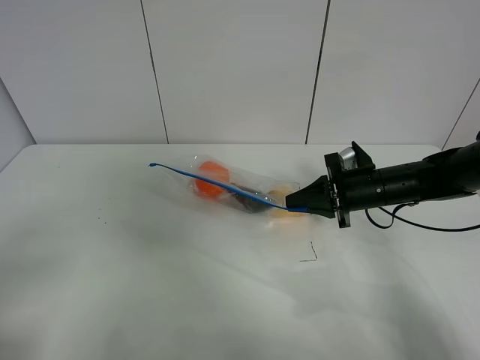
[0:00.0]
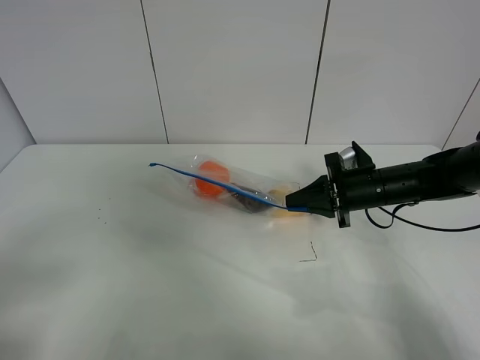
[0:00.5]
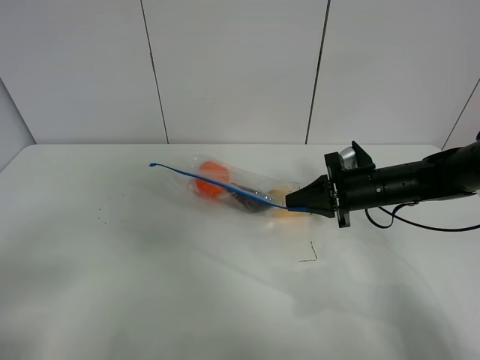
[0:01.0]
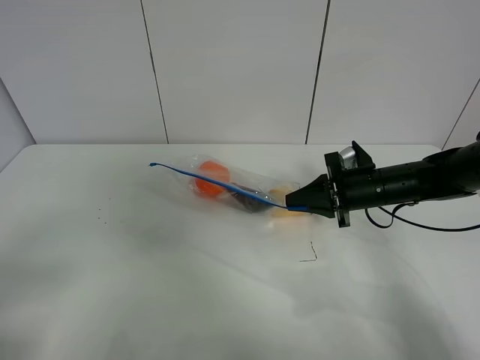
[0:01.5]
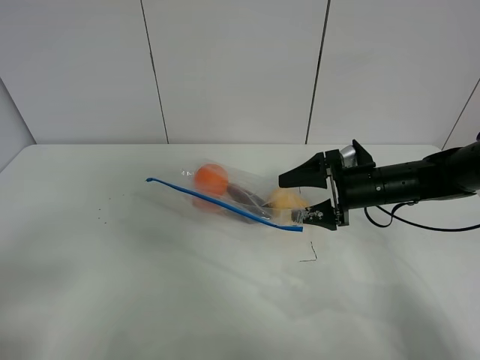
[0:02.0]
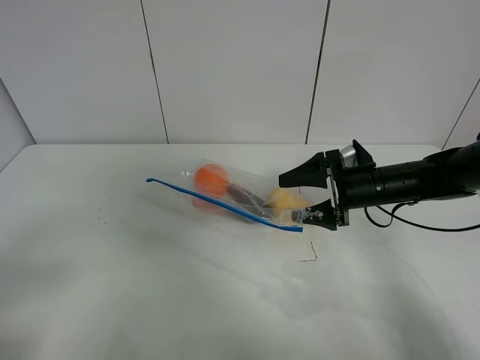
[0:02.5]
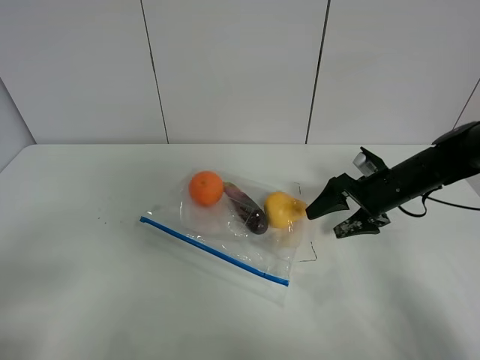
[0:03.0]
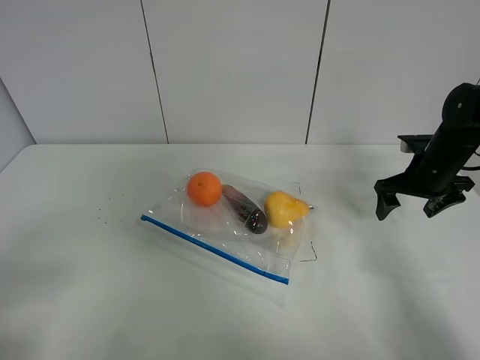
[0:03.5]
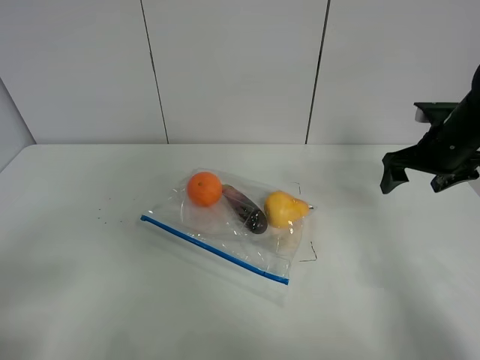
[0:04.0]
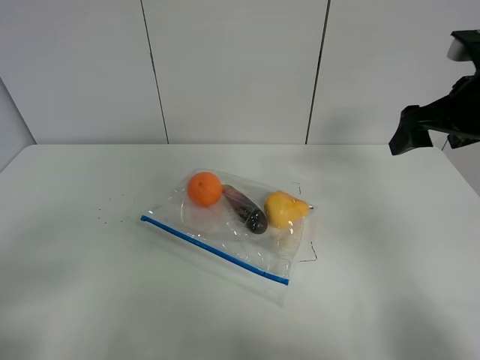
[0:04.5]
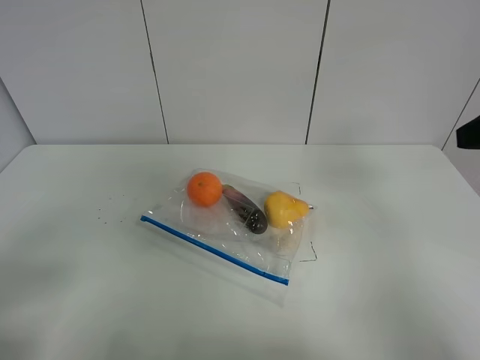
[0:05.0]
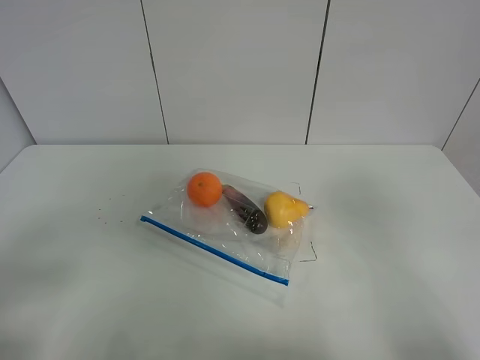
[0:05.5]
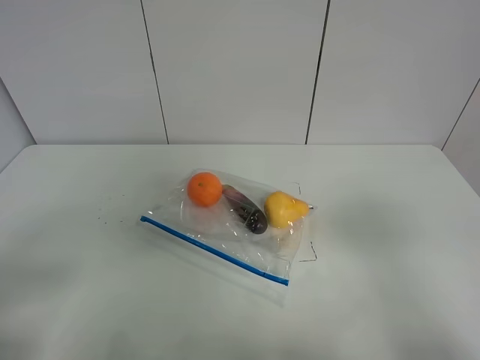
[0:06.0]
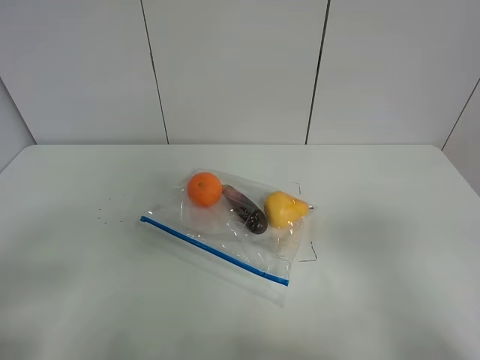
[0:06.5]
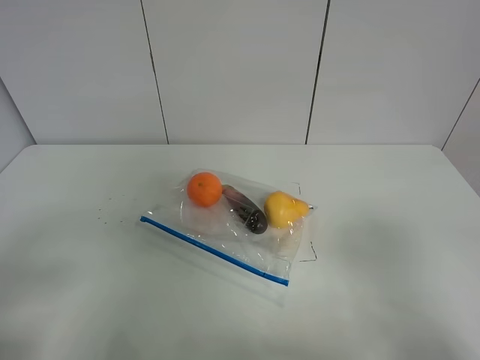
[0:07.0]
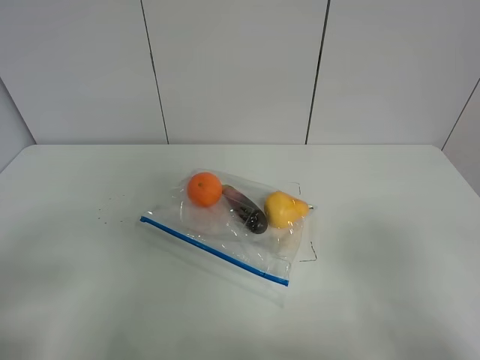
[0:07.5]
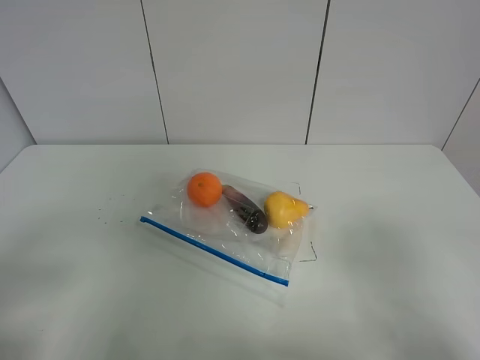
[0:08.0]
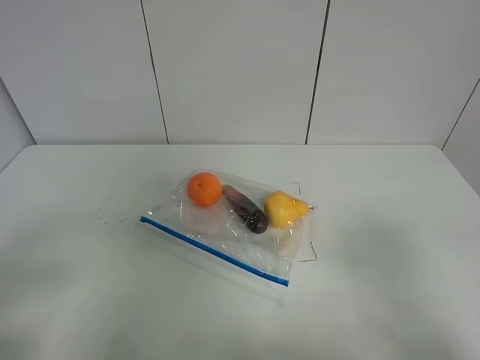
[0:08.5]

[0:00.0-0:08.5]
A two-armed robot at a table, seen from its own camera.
Step, 0:00.0 to 0:03.0: Place the fruit bag with right gripper.
0:00.0 to 0:02.0: The right gripper opens up.
0:02.0 to 0:04.0: The right gripper heads to the right and upward, covering roughly 10 cm.
0:04.0 to 0:06.5: The right gripper heads backward, covering approximately 40 cm.

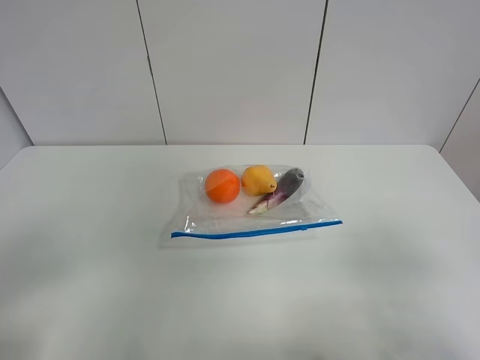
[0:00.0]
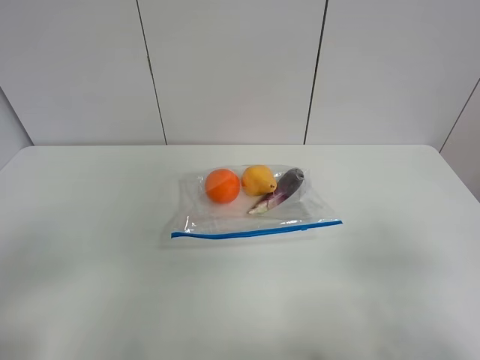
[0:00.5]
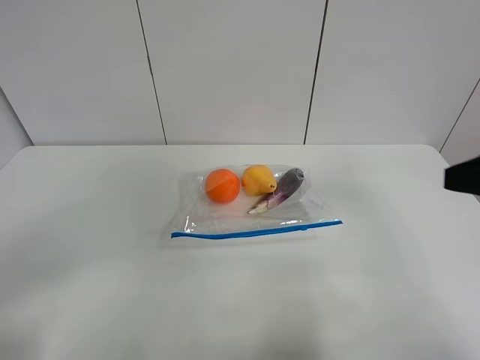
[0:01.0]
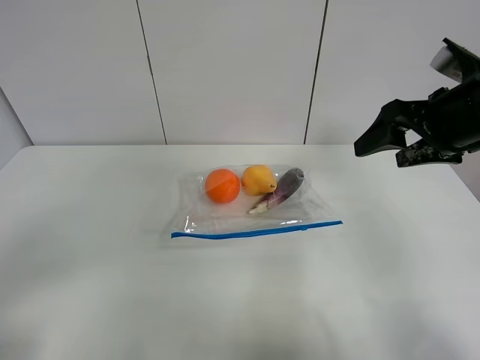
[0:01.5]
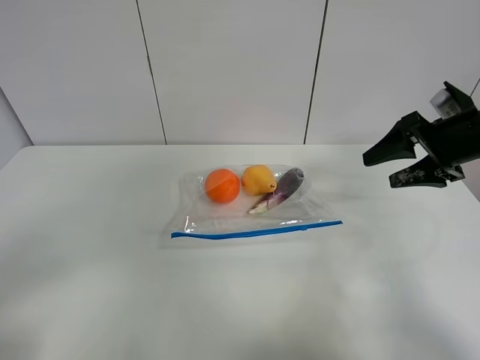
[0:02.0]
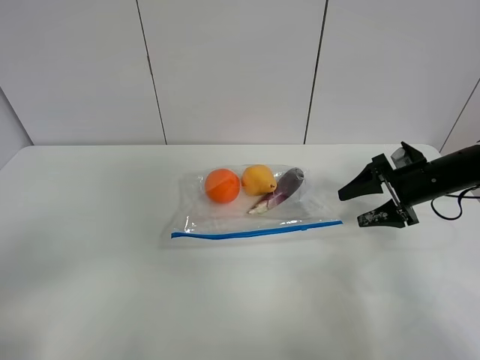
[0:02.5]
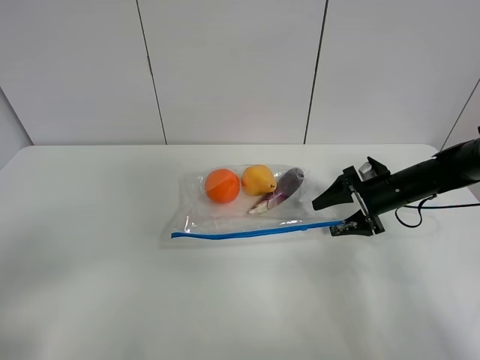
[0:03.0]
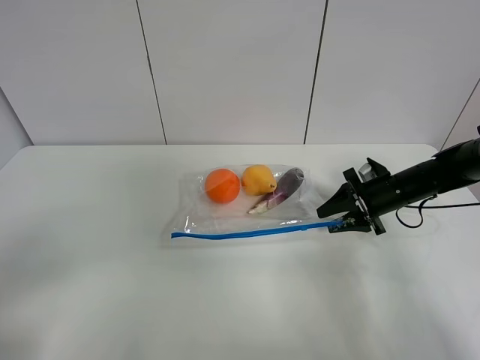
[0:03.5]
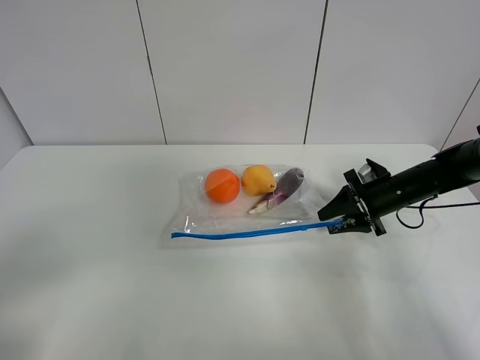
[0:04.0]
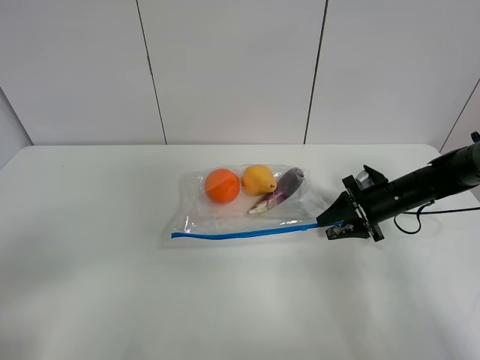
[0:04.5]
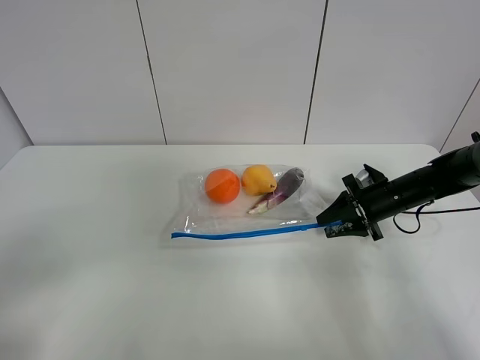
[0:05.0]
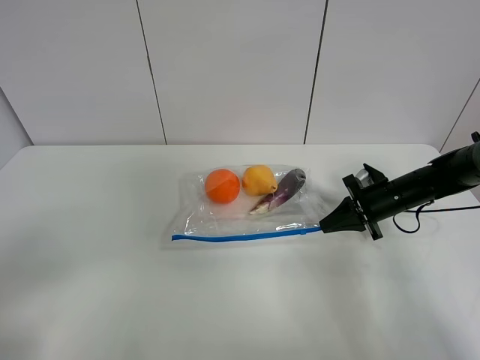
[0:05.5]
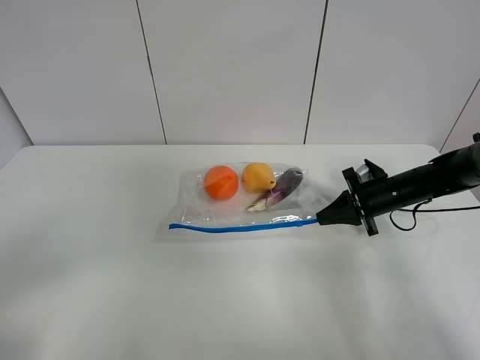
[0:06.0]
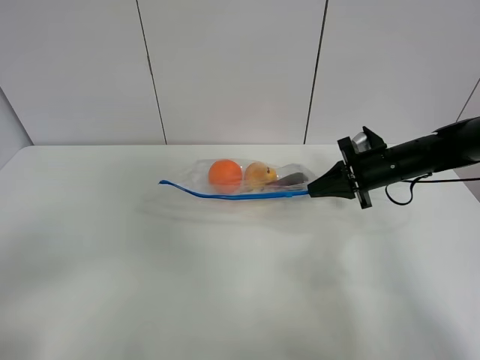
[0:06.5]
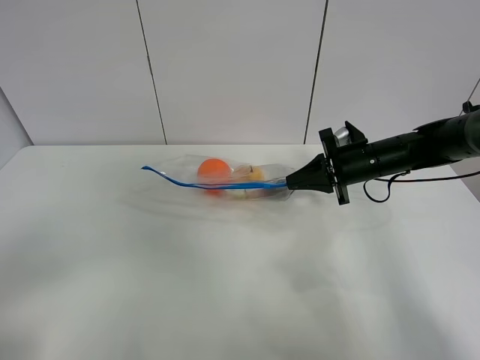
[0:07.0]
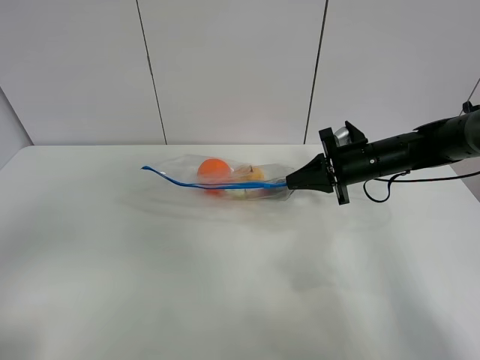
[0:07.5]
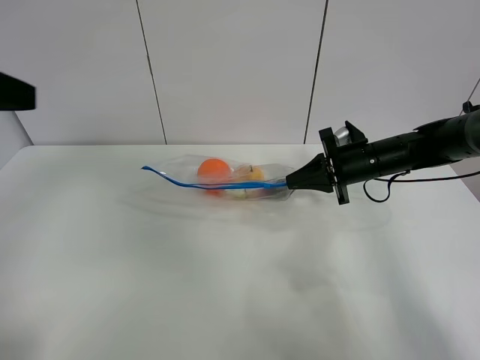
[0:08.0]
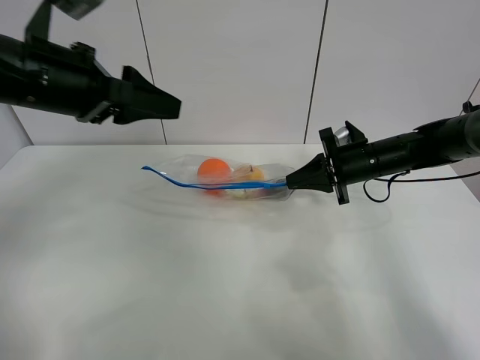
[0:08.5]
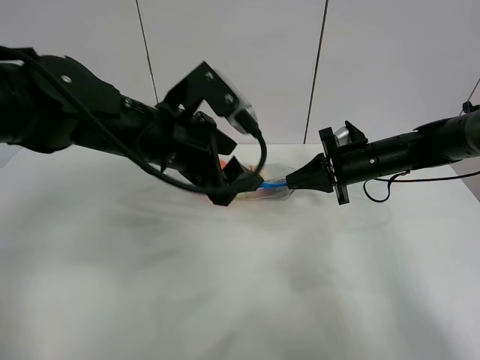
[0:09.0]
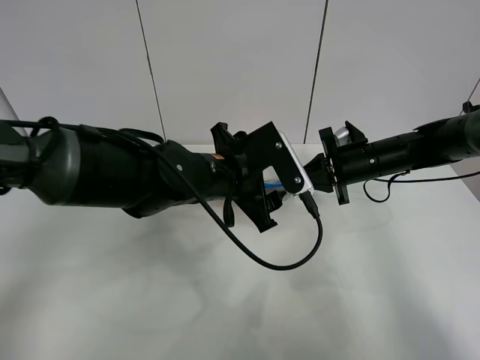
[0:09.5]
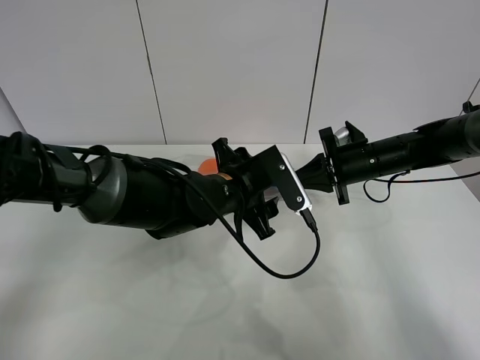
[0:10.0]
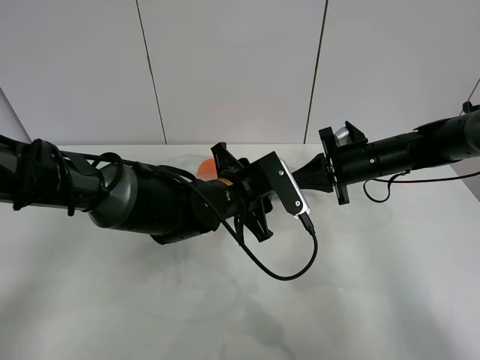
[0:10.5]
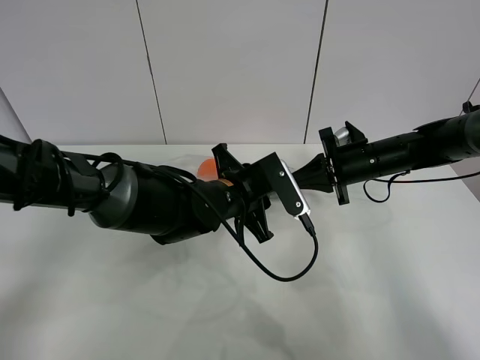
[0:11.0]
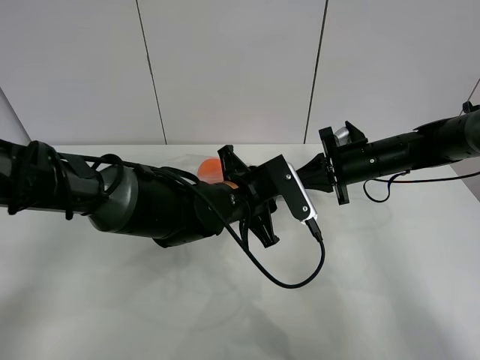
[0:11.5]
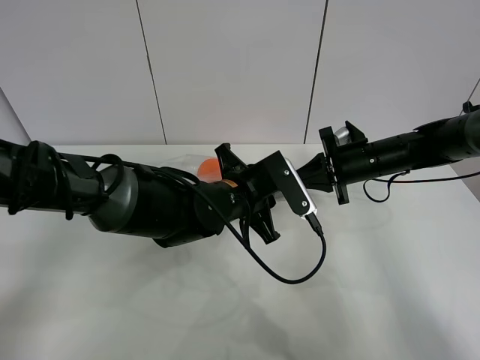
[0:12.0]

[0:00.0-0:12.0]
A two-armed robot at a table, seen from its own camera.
Step, 0:00.0 to 0:05.0: Grasp the fruit bag with right gripper.
Step, 0:05.5 to 0:07.0: Lift the fruit bag with your right gripper.
0:00.0 to 0:02.0: The right gripper heads forward, covering approximately 30 cm.
0:02.0 to 0:04.0: The right gripper moves downward, some 15 cm, and closes up.
0:04.0 to 0:06.0: The right gripper closes up.
0:06.0 to 0:08.0: The right gripper heads upward and to the left, covering approximately 10 cm. Meanwhile the left gripper heads forward and upward, covering approximately 25 cm.
0:08.0 to 0:10.0: The left gripper shifts about 35 cm to the right, downward and forward.
0:10.0 to 0:12.0: The left gripper closes up.

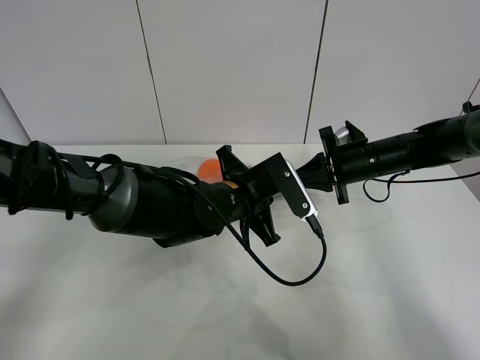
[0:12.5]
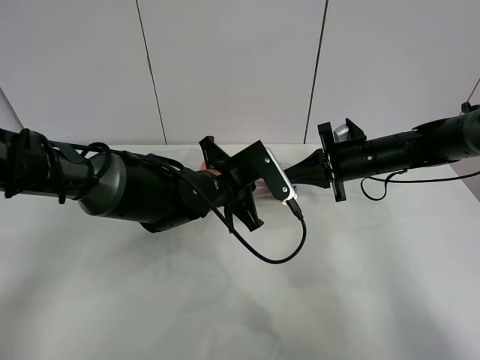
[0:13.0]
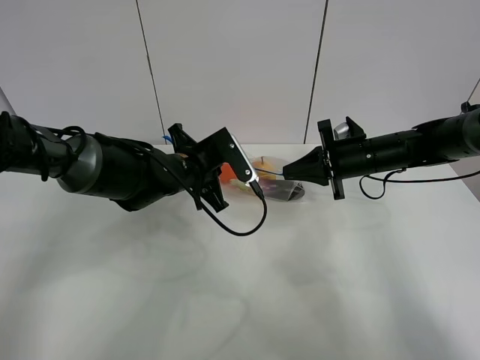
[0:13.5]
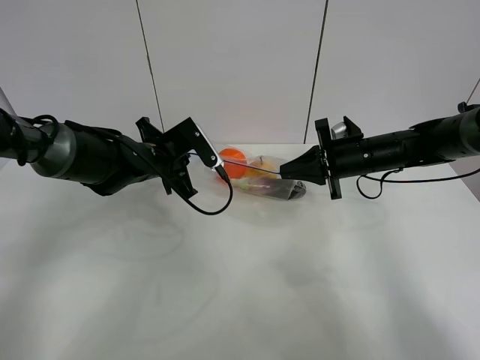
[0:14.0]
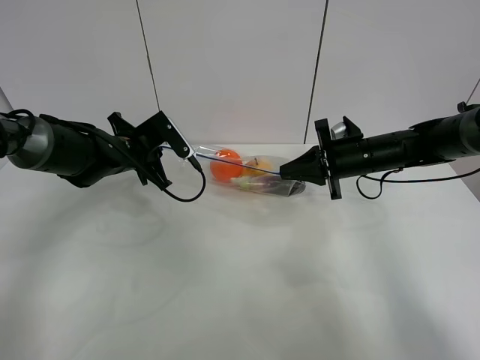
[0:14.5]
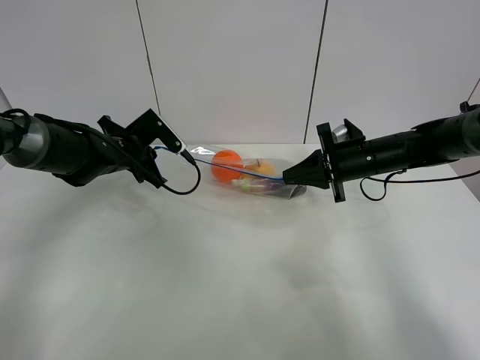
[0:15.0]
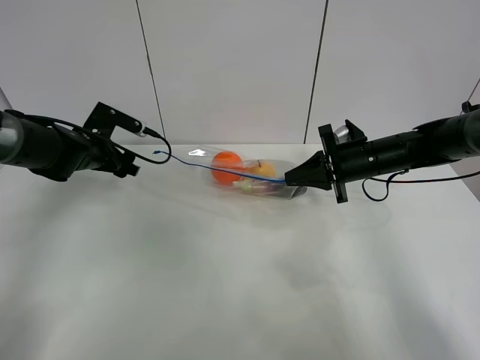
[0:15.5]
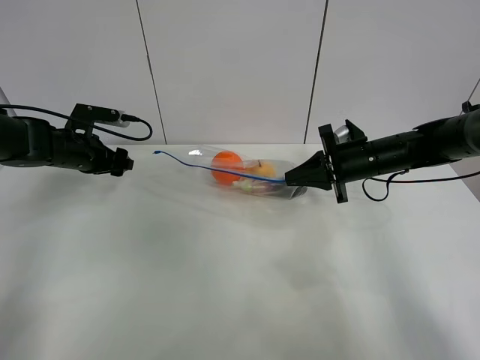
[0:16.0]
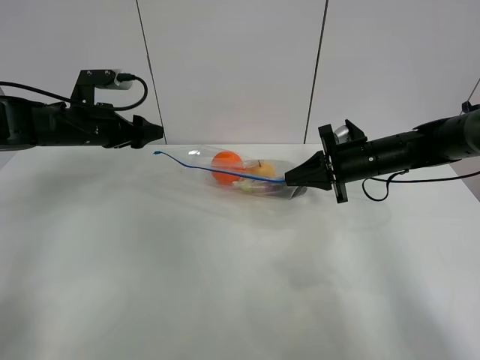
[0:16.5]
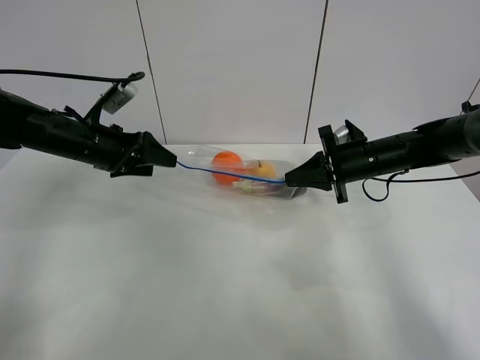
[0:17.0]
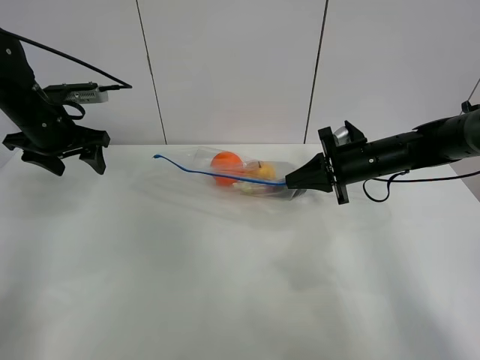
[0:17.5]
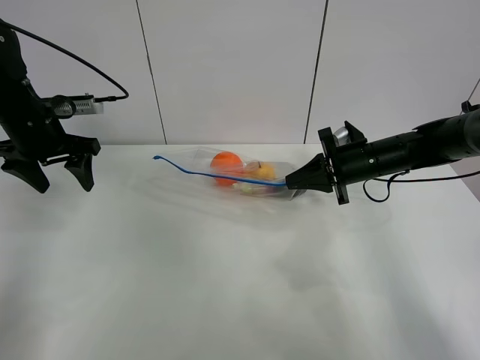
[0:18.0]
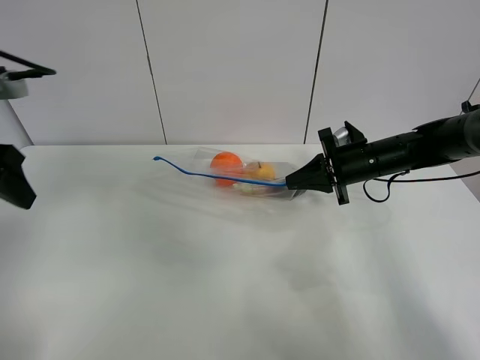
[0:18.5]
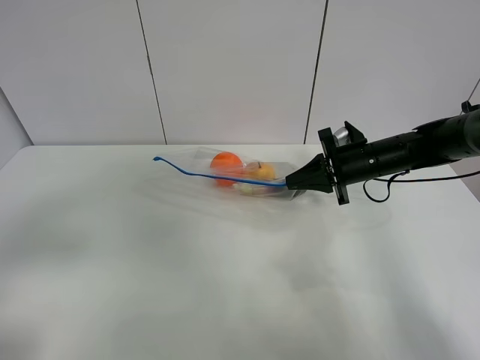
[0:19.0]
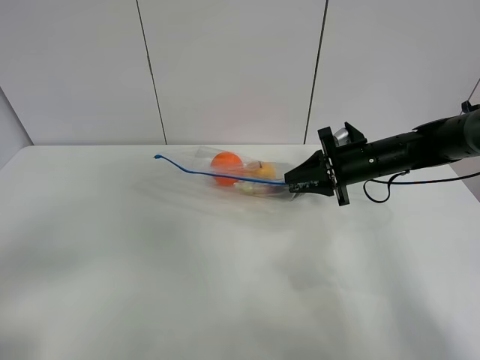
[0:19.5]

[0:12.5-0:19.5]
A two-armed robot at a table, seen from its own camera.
Step, 0:12.5 to 0:15.0: Pull the fruit bag with left gripper.
0:12.5 to 0:14.5: The left gripper goes about 20 cm to the left and forward.
0:14.5 to 0:16.0: The left gripper travels to the left by some 10 cm, and opens up.
0:16.0 to 0:17.5: The left gripper shifts some 10 cm upward.
0:17.5 to 0:19.5: The right gripper opens up. Meanwhile the left gripper shifts approximately 40 cm backward.
